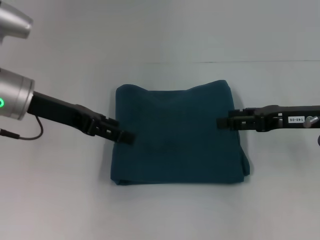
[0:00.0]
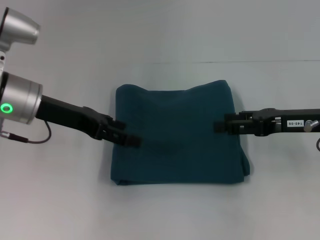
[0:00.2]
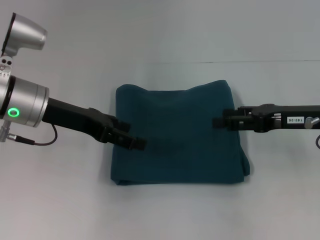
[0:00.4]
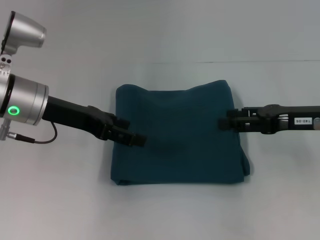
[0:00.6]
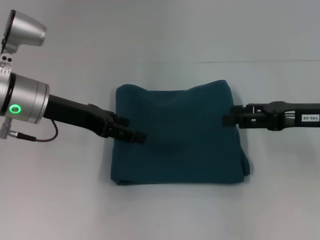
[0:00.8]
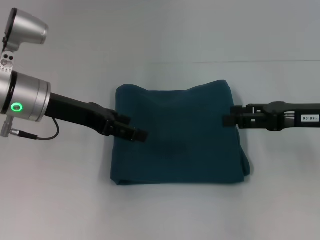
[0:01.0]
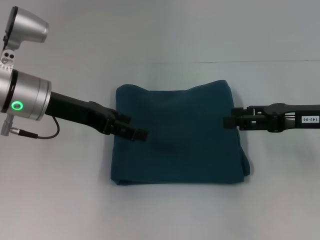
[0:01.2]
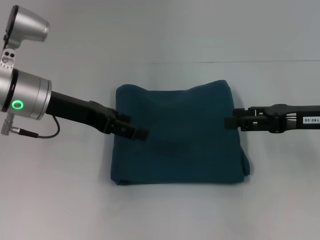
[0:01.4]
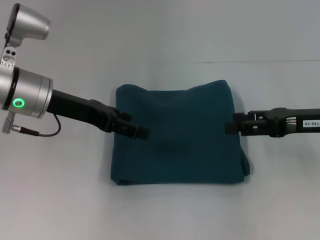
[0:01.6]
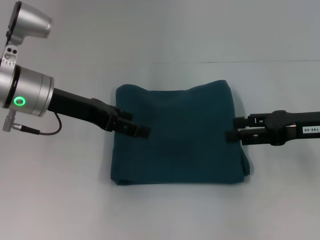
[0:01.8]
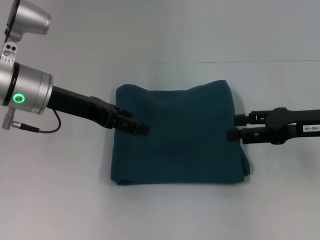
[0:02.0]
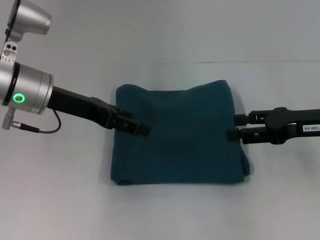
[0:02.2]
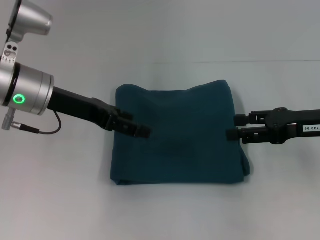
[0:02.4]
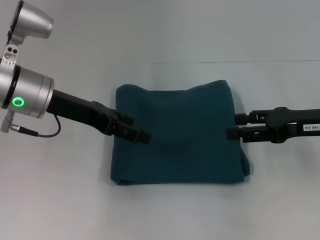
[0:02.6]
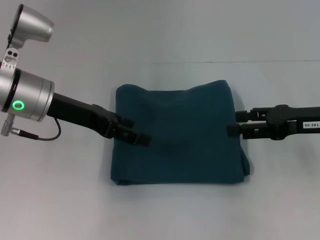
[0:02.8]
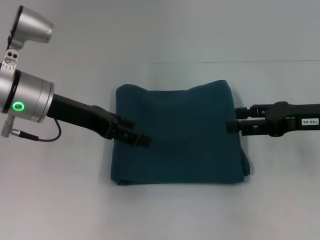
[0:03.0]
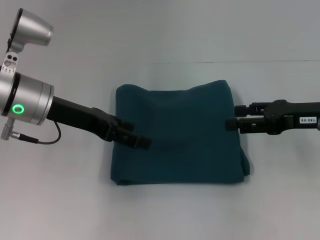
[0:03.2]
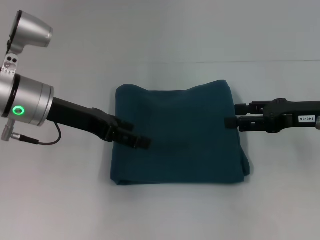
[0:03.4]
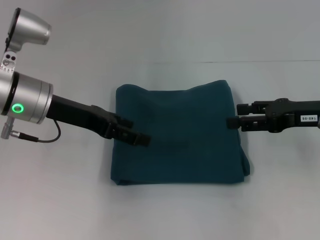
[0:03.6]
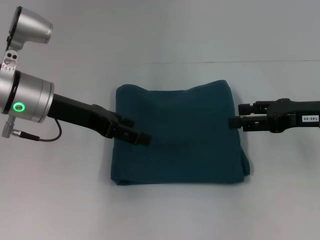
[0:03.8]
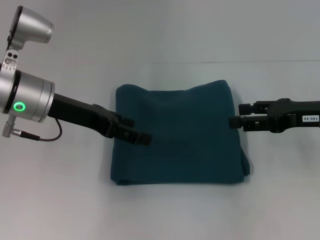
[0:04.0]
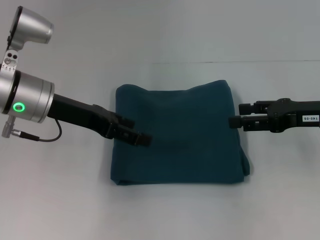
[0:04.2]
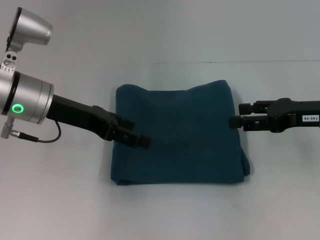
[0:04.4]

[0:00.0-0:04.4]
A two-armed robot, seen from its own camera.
0.0 to 3.0 s: The grippers move only a little.
3.0 to 4.4 s: Both grippers stay about where they are.

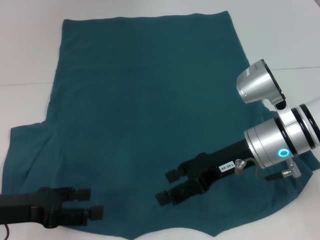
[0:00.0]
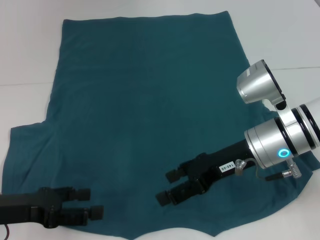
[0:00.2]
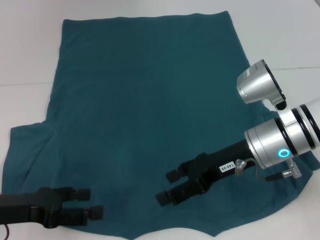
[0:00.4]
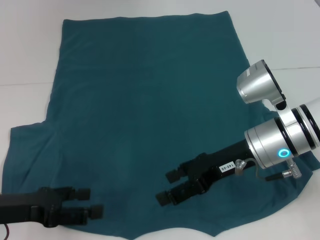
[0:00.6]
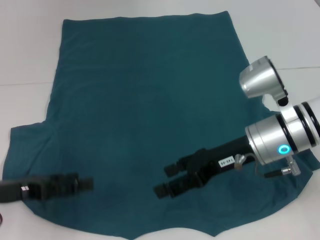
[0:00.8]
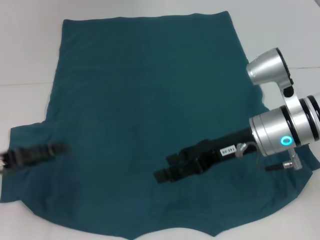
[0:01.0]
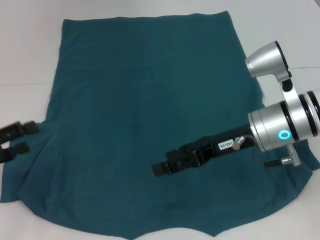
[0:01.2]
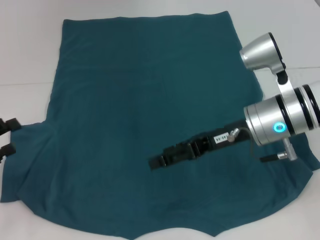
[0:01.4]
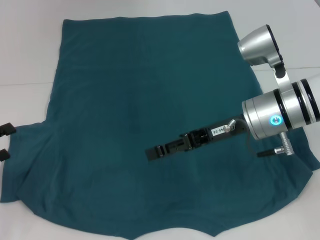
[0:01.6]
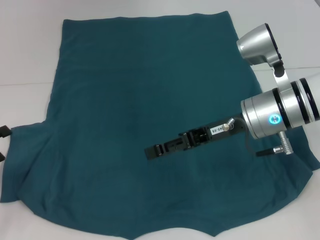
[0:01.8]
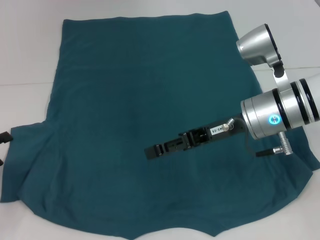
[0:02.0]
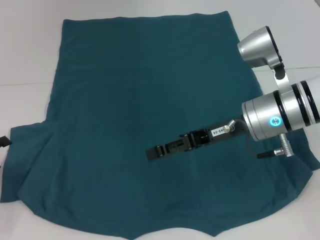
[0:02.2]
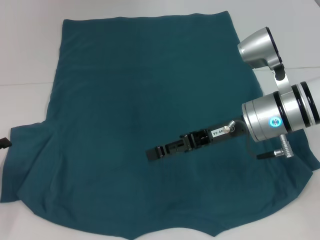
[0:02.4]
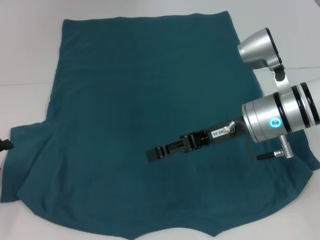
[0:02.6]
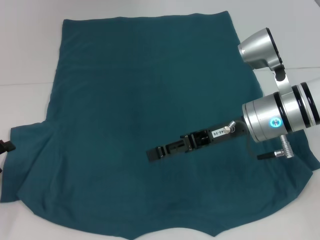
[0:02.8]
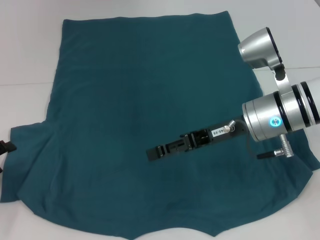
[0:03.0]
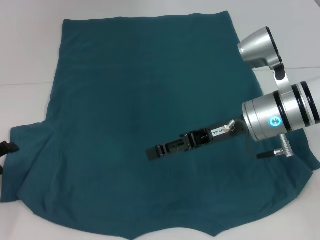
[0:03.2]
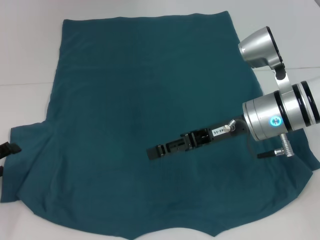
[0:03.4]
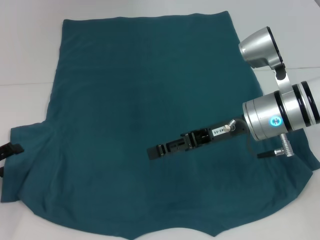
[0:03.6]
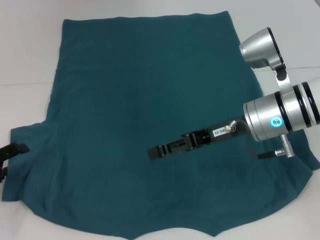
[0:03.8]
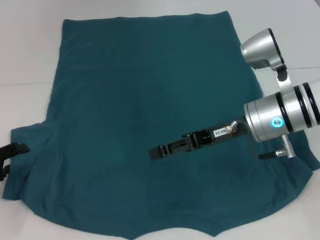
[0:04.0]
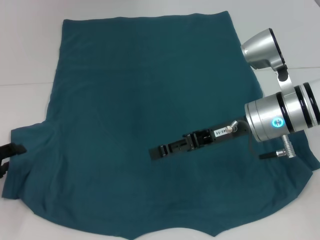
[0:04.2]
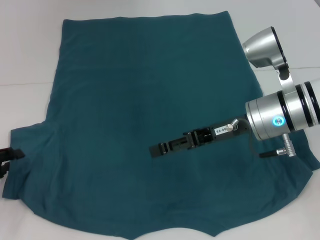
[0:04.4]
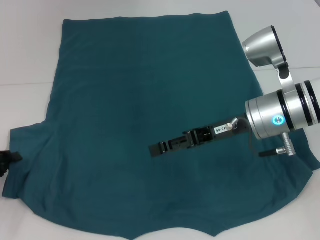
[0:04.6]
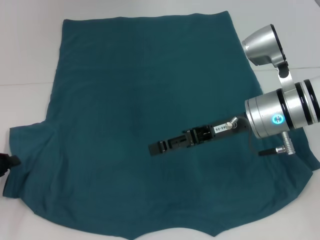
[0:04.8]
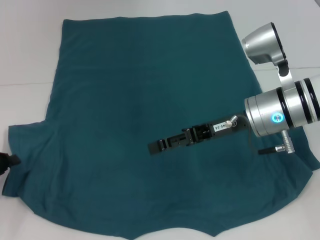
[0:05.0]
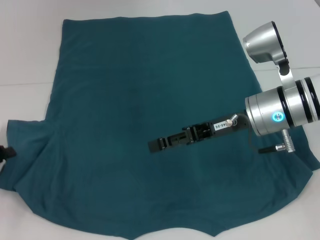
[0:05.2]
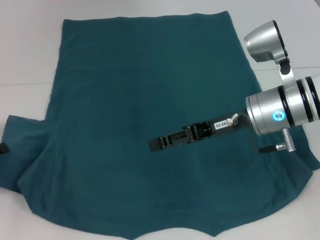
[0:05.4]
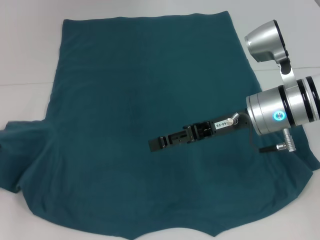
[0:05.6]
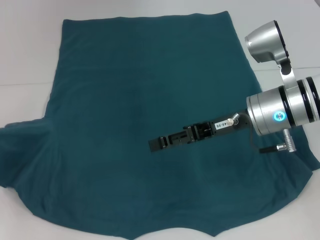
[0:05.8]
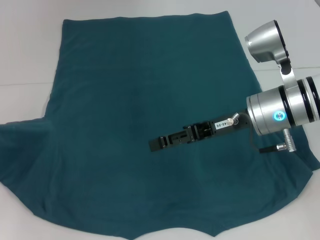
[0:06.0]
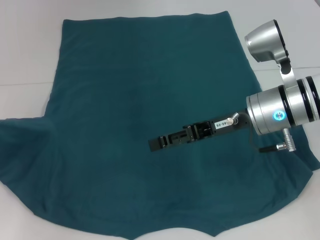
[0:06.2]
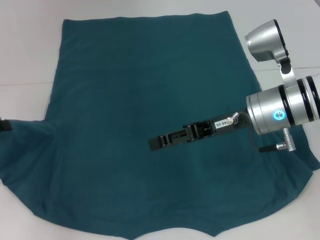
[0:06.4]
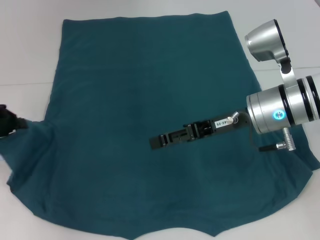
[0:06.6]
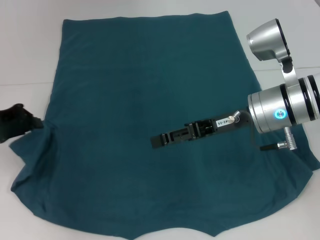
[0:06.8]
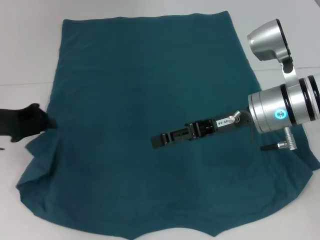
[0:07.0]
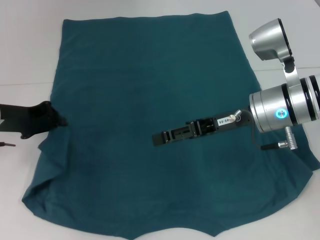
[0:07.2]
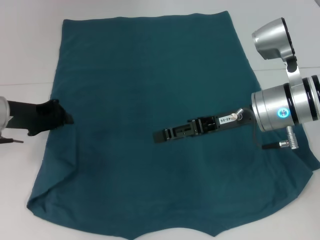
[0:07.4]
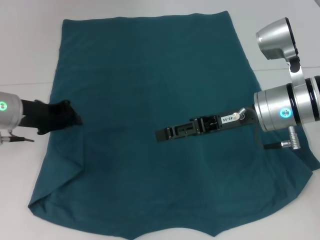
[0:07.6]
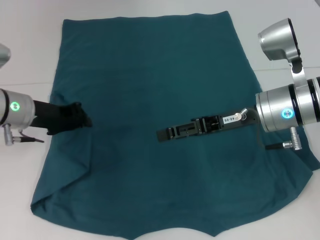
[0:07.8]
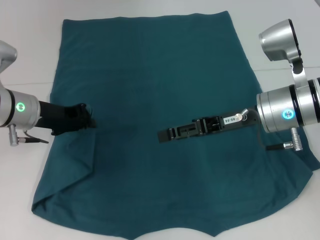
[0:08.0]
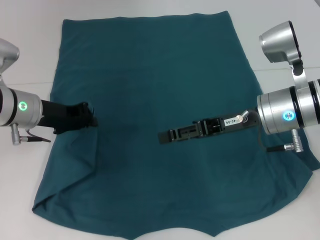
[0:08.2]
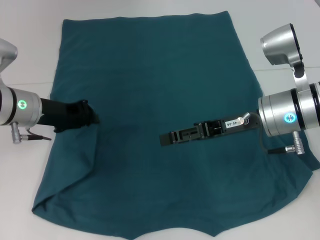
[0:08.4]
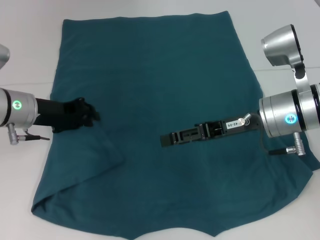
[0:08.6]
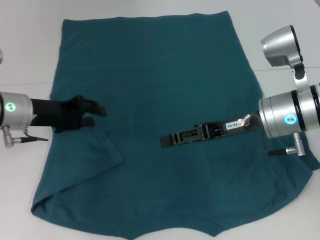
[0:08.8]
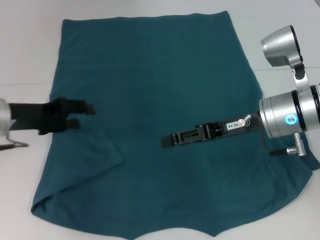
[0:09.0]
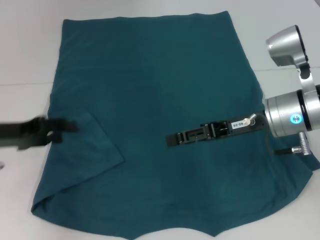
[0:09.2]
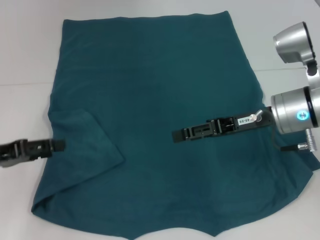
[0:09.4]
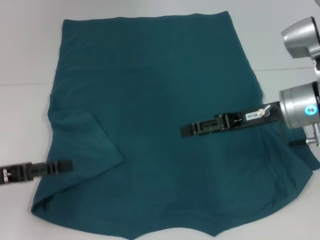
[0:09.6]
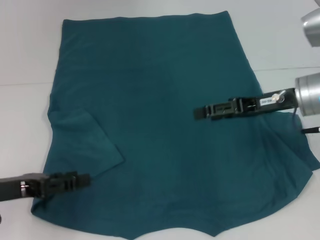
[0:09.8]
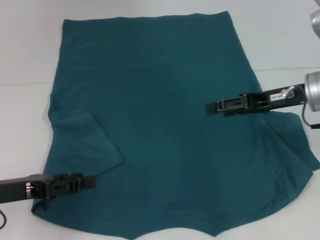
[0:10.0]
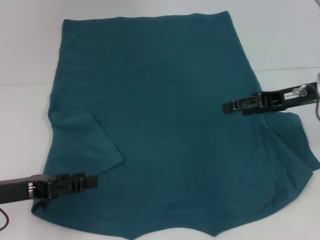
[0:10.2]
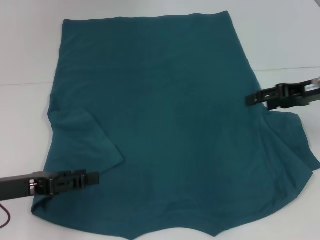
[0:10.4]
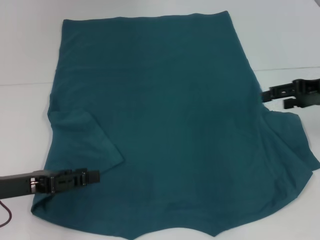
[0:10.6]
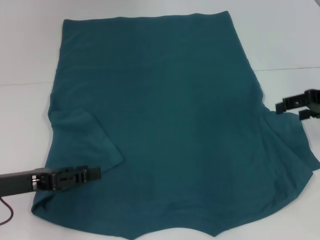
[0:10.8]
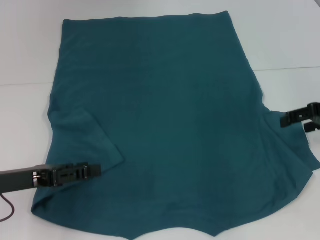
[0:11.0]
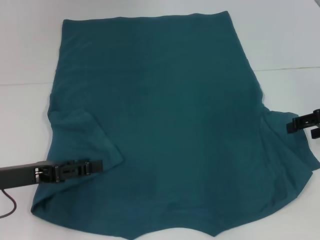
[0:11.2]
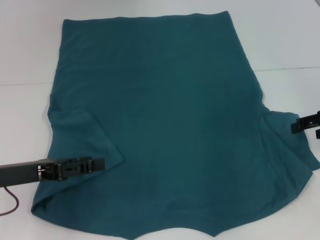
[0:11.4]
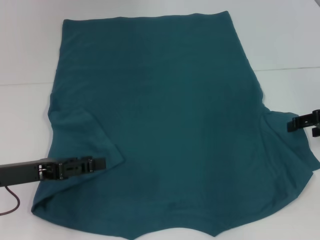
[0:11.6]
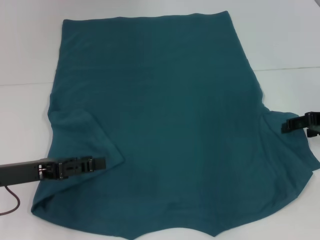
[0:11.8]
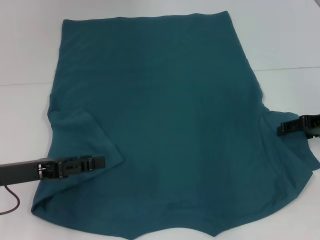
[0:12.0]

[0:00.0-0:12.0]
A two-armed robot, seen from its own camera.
Step, 0.0 to 8.8 s: Fold the bottom left sleeve with your left hand.
0.0 to 1.6 s: The left gripper moves to the left, about 10 cm.
1.6 to 4.4 s: There are only small adjustments of the grippers.
4.4 to 6.0 s: The left gripper moves upward, some 5 cm, and closes up.
6.0 to 7.6 s: The left gripper goes about 15 cm to the right and forward.
7.6 to 9.0 s: The grippers make only small movements.
9.0 to 10.4 s: The right gripper heads to the right, covering some 10 cm. The left gripper shifts approximately 10 cm backward, and opens up.
10.4 to 12.0 s: The right gripper moves about 5 cm.

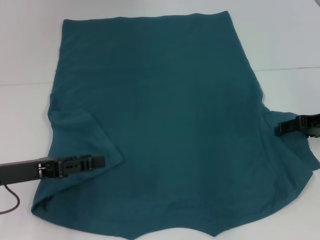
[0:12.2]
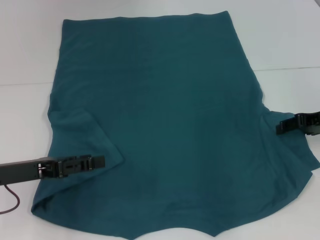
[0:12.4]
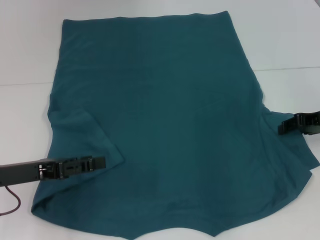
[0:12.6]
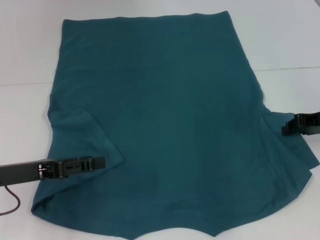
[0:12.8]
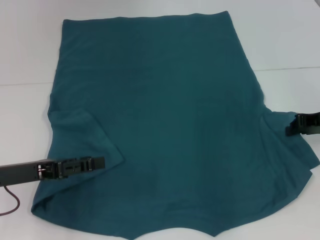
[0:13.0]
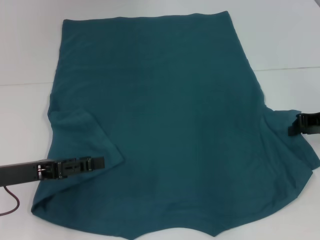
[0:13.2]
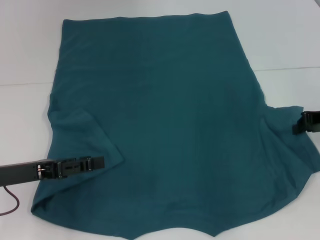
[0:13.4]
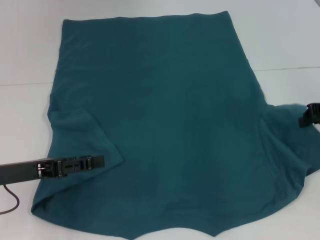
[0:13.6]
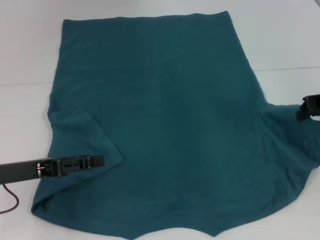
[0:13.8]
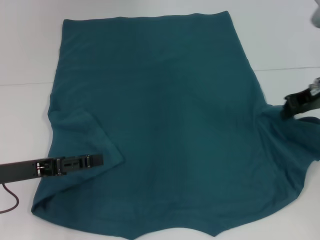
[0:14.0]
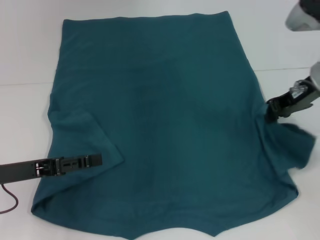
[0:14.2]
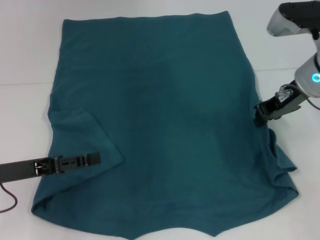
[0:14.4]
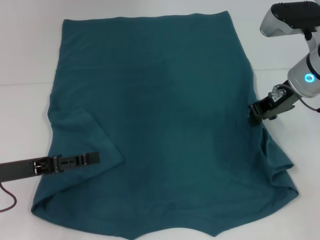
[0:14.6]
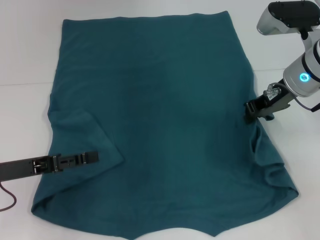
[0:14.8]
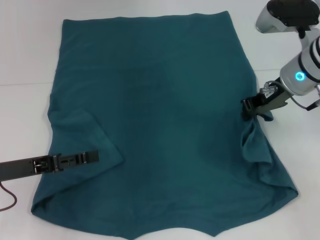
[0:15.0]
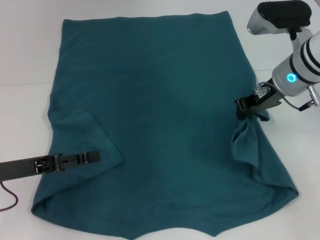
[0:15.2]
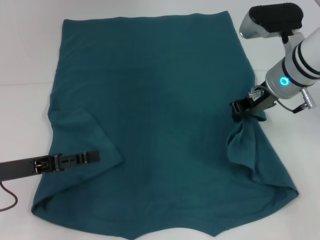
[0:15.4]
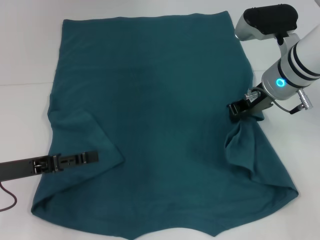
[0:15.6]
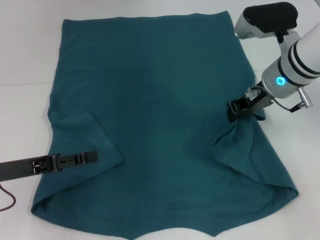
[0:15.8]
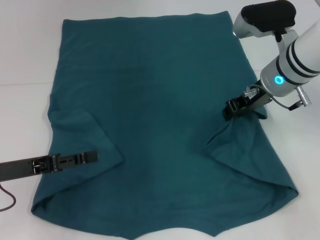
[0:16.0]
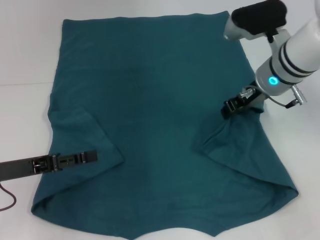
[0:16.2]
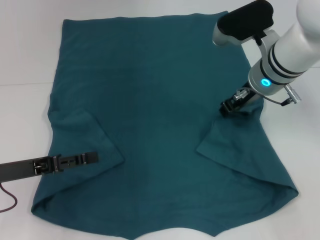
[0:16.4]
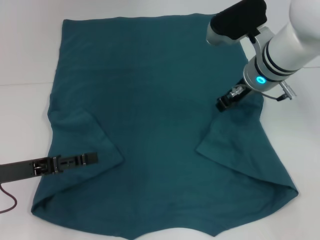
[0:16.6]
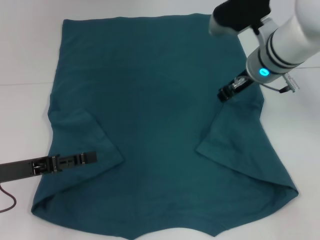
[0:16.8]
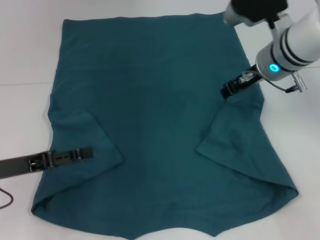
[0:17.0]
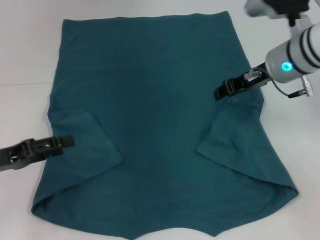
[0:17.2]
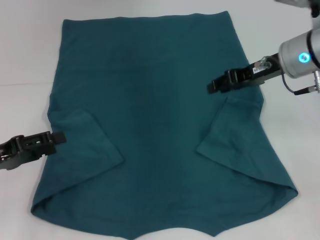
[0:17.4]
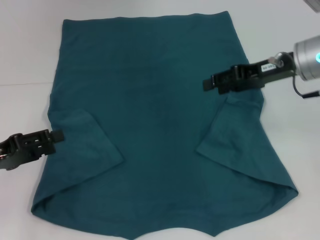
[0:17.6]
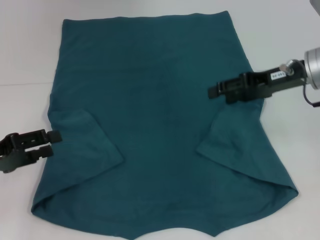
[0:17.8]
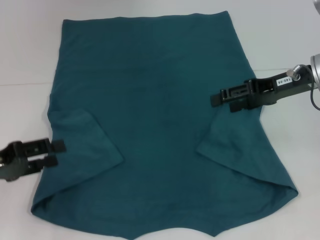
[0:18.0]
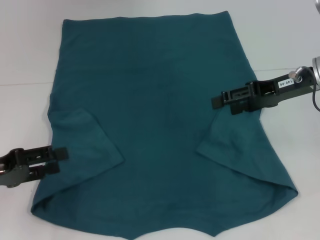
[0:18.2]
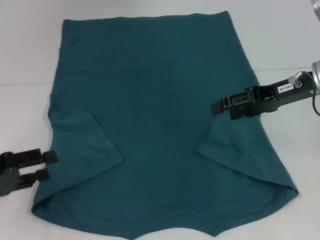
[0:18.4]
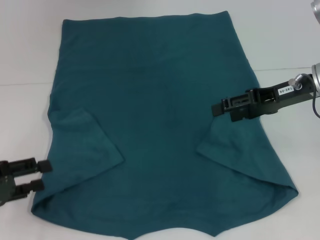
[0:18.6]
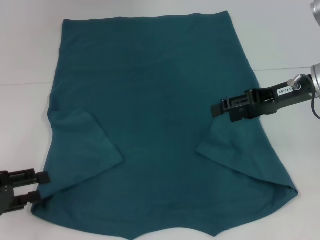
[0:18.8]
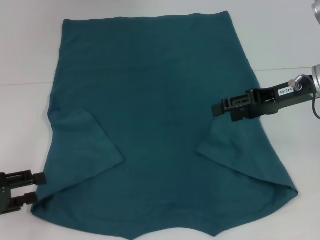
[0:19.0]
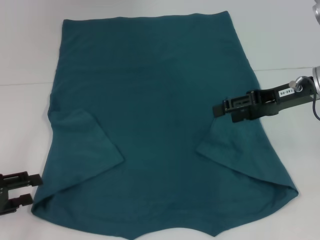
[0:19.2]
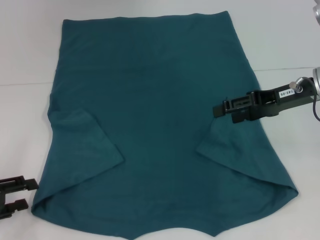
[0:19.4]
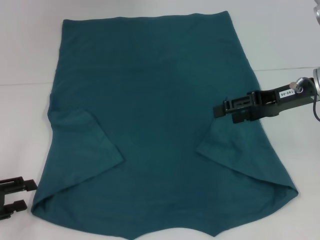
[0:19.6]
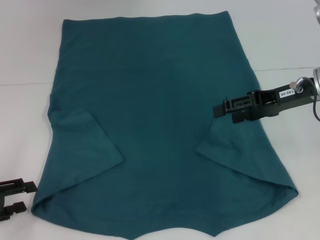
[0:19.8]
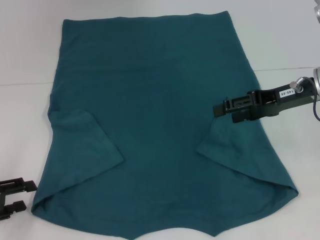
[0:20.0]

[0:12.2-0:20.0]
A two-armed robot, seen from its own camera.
Step, 12.2 to 16.8 s: Fold the bottom right sleeve to the right.
12.2 to 13.8 s: The right gripper shifts roughly 5 cm upward, and closes up.
13.8 to 15.4 s: The right gripper is displaced to the left by approximately 15 cm.
16.8 to 18.4 s: The left gripper shifts approximately 5 cm to the left. Meanwhile the right gripper travels to the right and backward by approximately 10 cm, and opens.
18.4 to 20.0 s: The grippers move only a little.
